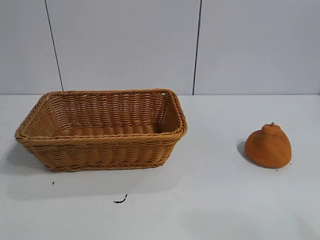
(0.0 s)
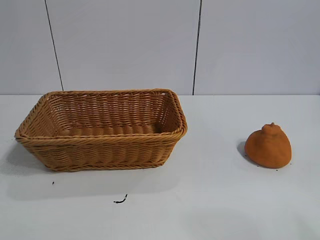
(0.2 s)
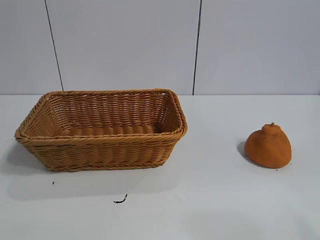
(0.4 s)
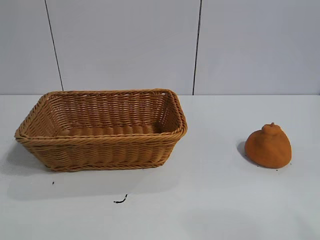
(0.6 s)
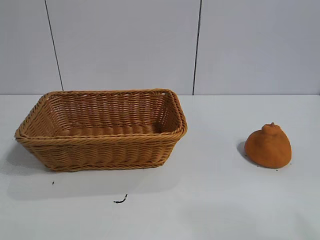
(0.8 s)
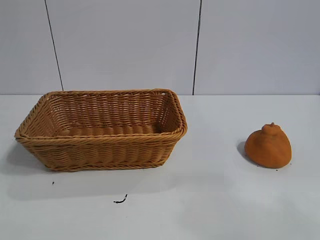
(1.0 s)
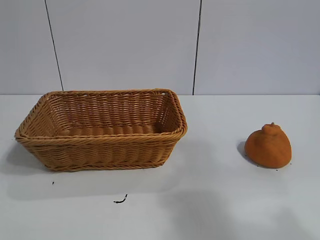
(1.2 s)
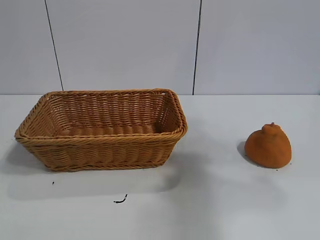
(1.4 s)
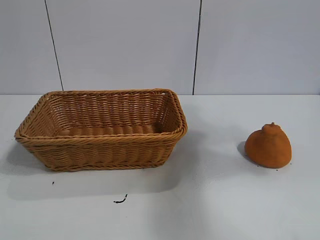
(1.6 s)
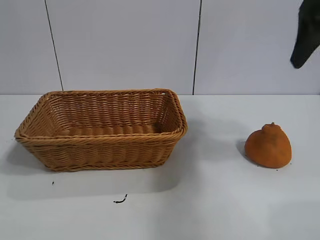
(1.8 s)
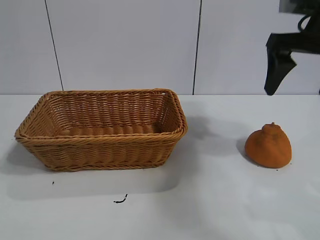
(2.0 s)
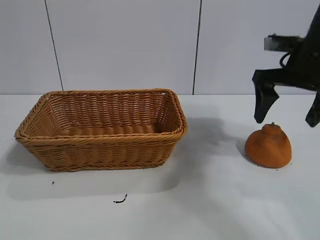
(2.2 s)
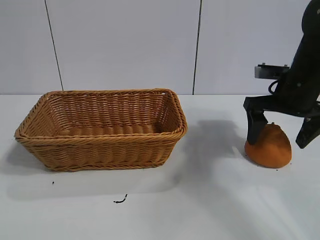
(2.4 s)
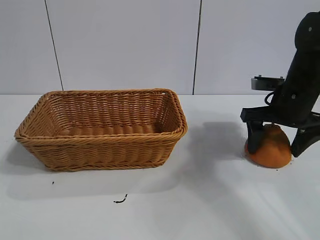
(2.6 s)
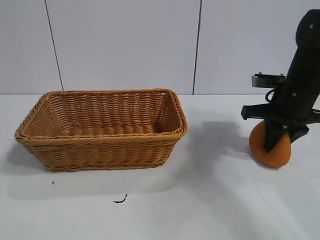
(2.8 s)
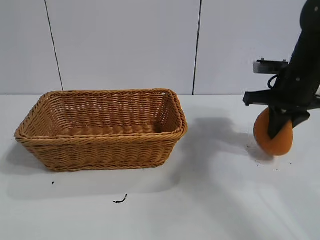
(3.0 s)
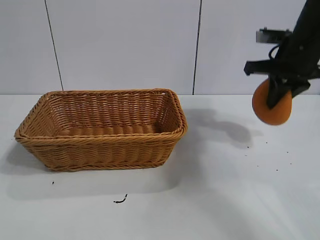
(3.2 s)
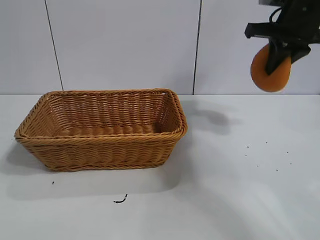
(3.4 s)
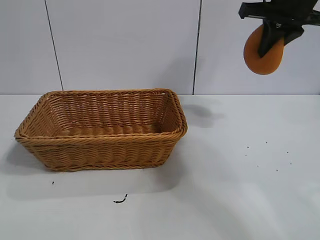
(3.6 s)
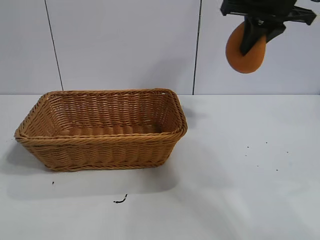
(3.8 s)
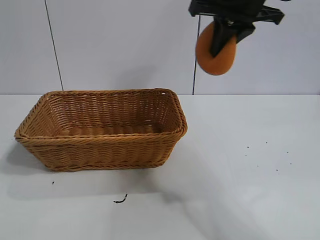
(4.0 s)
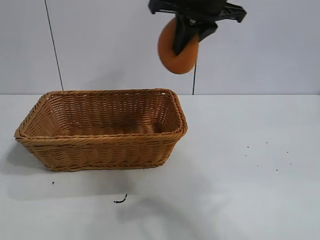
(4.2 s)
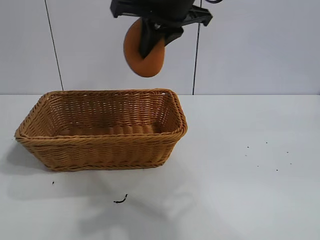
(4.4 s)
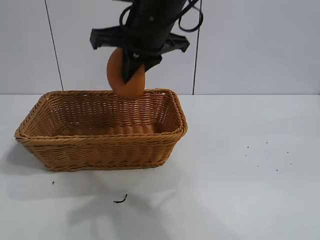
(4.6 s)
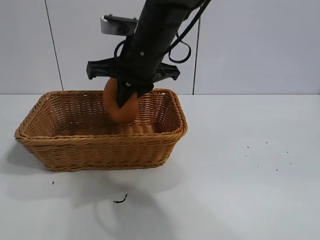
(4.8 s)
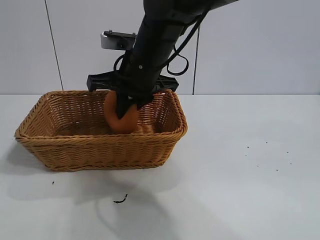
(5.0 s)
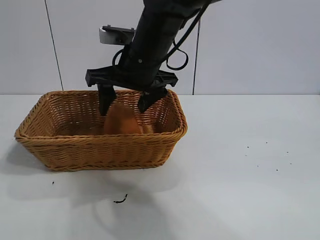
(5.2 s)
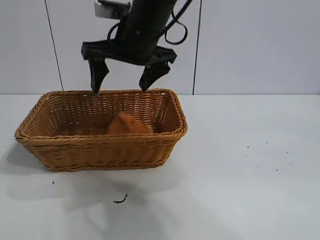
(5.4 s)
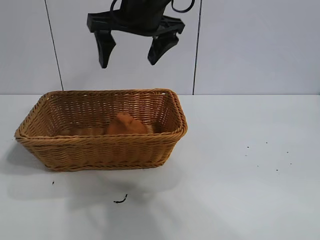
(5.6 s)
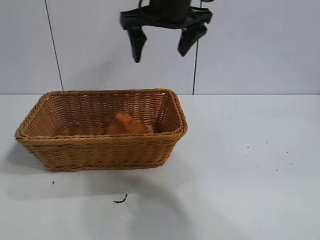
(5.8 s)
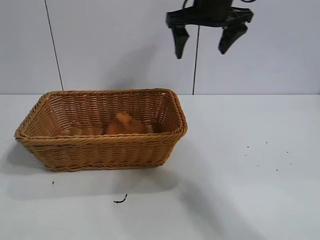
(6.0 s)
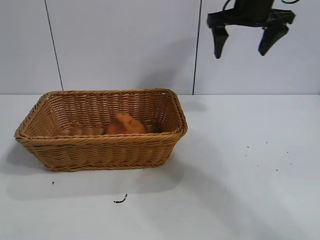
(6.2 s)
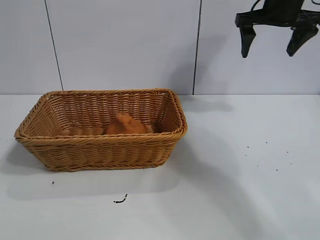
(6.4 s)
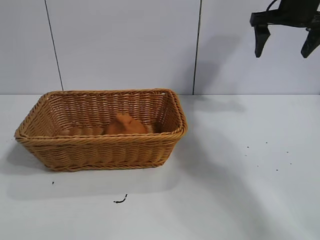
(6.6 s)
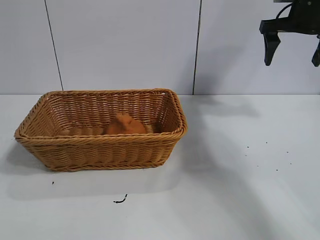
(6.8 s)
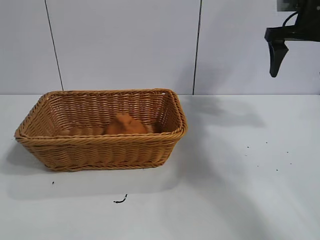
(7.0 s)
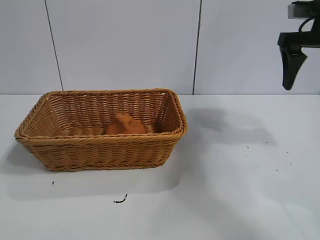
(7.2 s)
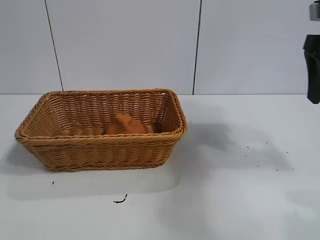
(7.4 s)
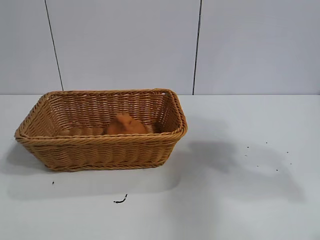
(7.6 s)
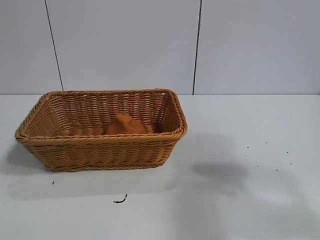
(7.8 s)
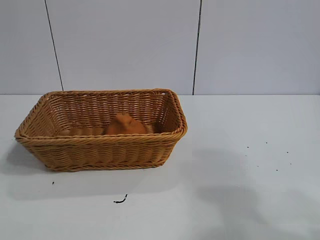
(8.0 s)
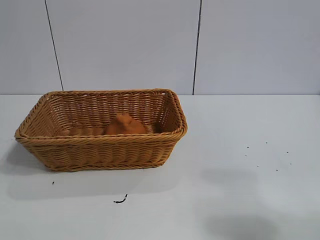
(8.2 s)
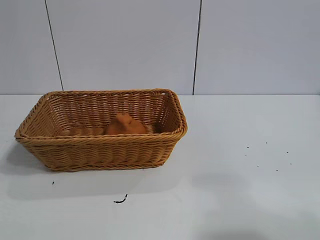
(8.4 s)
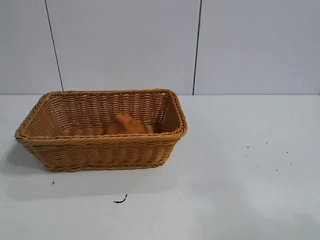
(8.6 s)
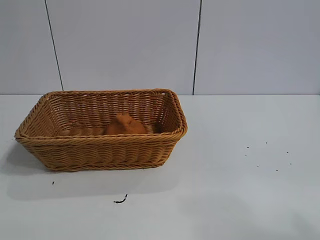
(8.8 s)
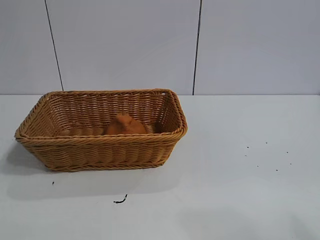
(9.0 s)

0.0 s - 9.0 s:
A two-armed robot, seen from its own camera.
Task of the whole recording: pick up the orange and put it into the basket.
Step, 0.8 s - 2.8 s: Grasp the orange with right gripper.
Step, 3.0 s - 5.2 s: Place the orange in the basket with right gripper.
